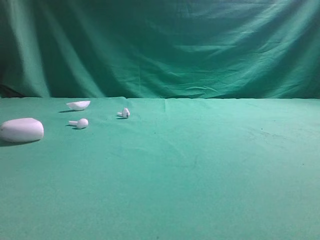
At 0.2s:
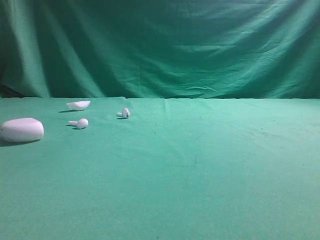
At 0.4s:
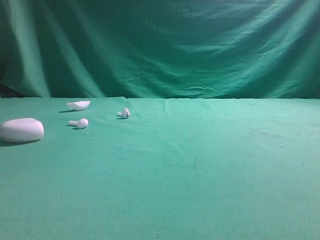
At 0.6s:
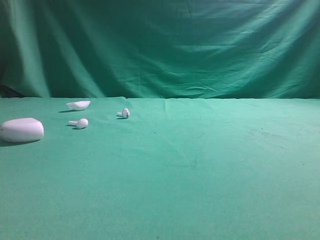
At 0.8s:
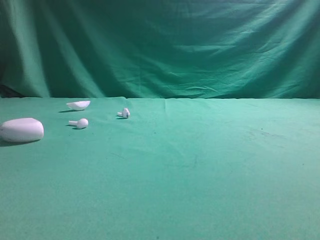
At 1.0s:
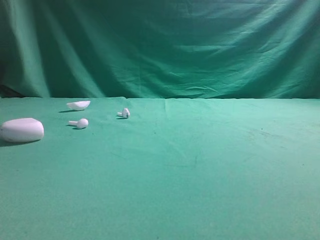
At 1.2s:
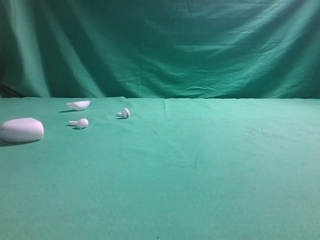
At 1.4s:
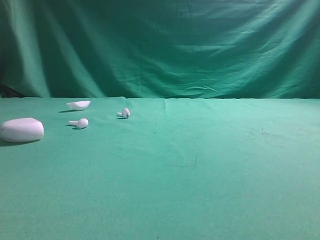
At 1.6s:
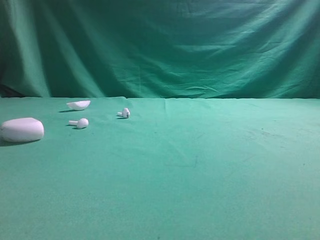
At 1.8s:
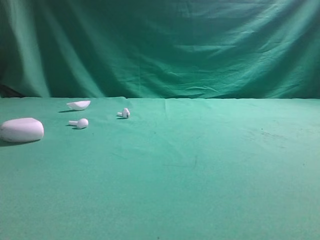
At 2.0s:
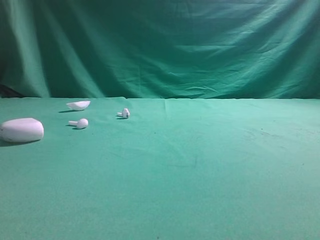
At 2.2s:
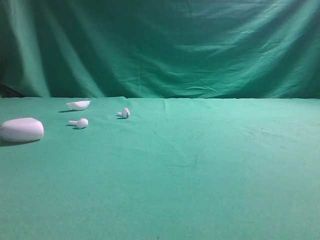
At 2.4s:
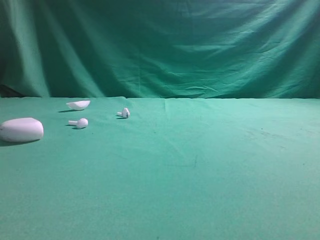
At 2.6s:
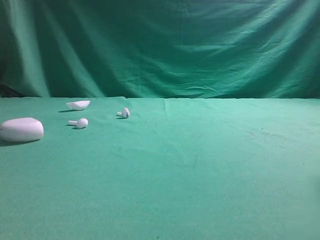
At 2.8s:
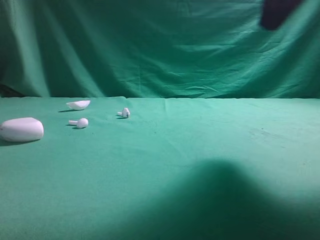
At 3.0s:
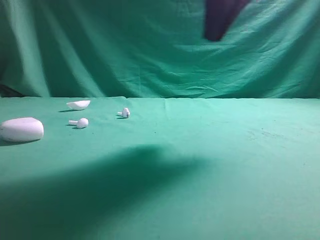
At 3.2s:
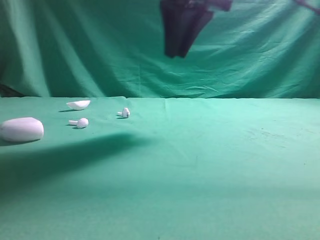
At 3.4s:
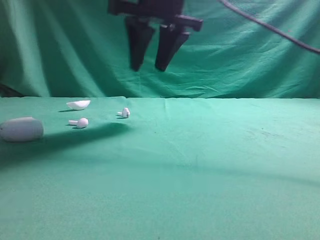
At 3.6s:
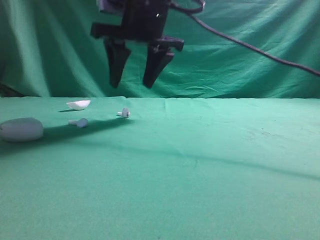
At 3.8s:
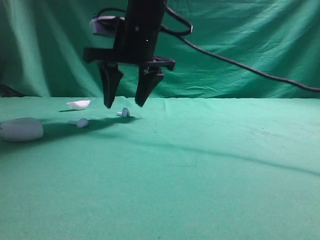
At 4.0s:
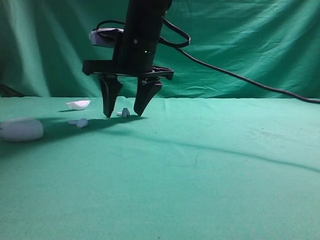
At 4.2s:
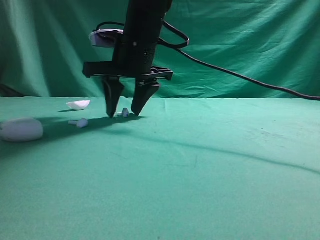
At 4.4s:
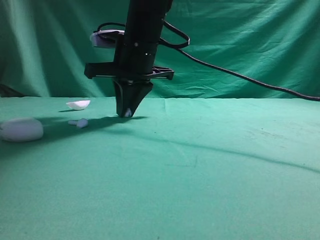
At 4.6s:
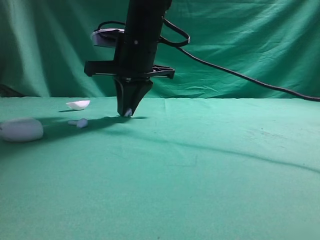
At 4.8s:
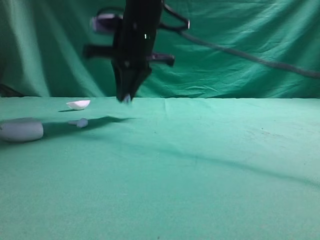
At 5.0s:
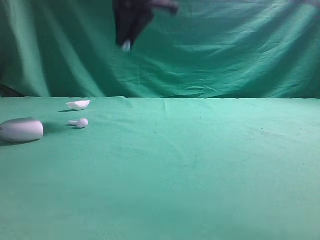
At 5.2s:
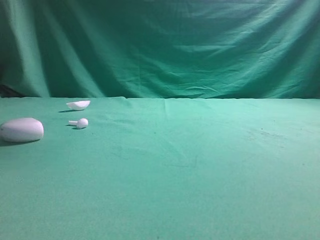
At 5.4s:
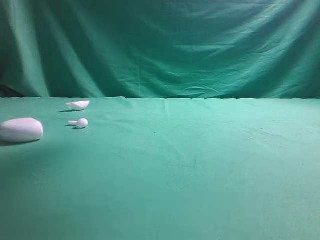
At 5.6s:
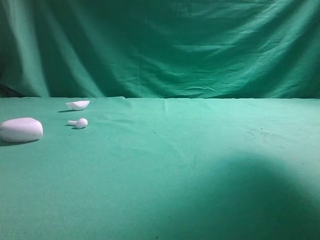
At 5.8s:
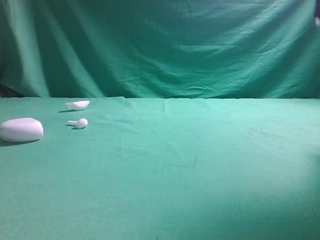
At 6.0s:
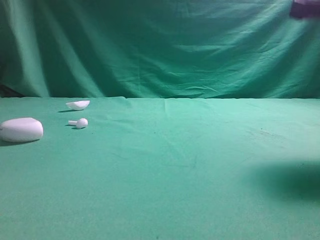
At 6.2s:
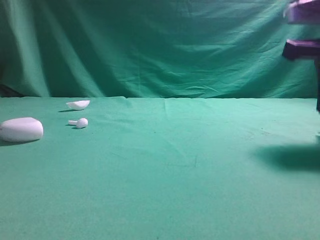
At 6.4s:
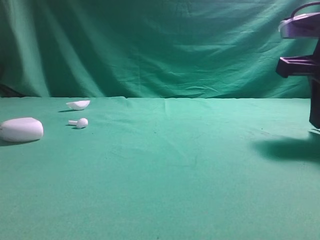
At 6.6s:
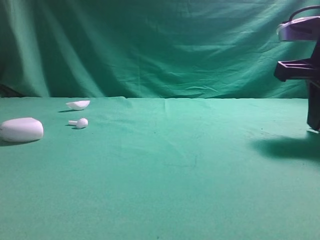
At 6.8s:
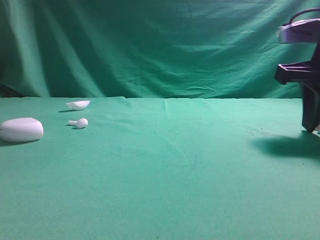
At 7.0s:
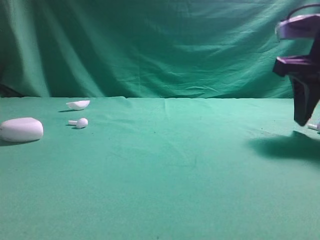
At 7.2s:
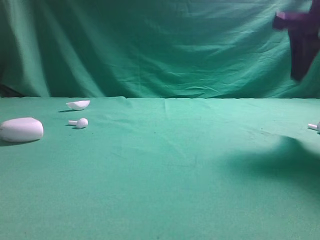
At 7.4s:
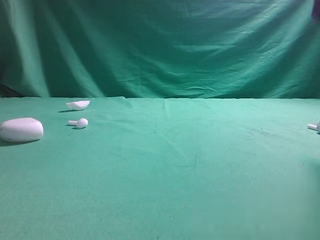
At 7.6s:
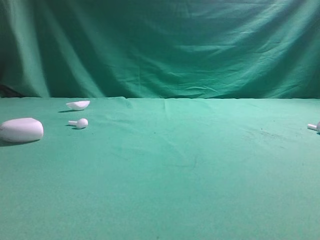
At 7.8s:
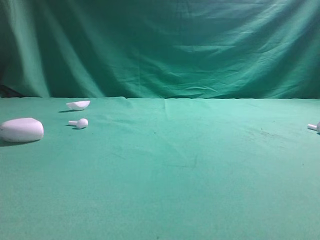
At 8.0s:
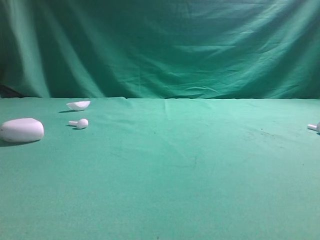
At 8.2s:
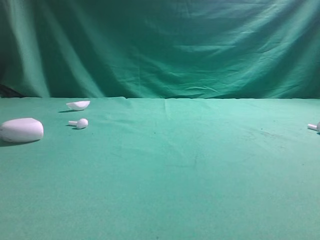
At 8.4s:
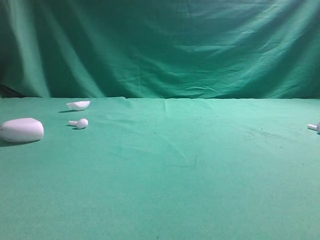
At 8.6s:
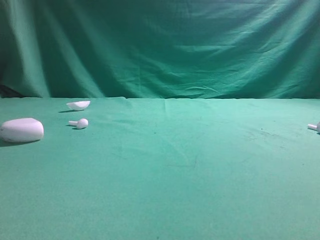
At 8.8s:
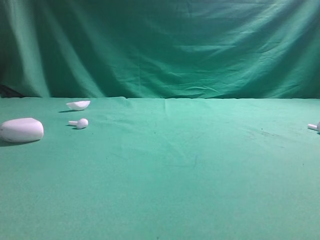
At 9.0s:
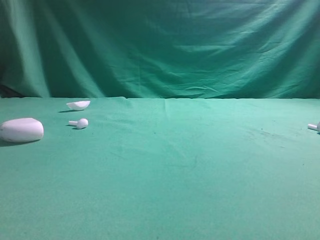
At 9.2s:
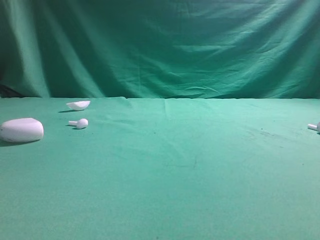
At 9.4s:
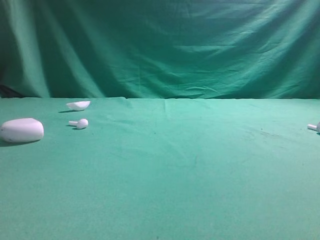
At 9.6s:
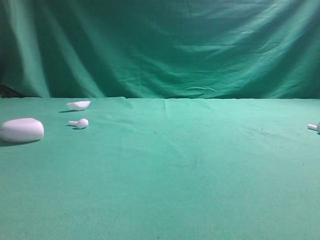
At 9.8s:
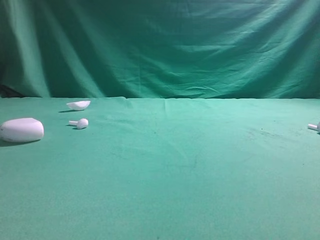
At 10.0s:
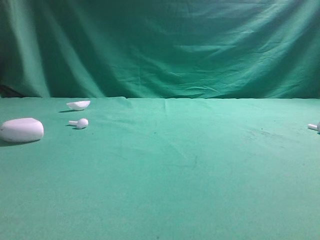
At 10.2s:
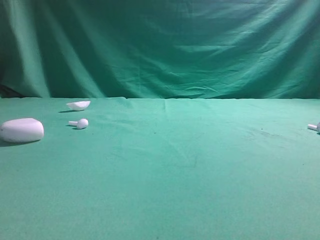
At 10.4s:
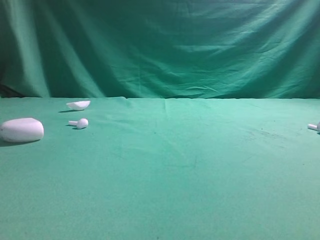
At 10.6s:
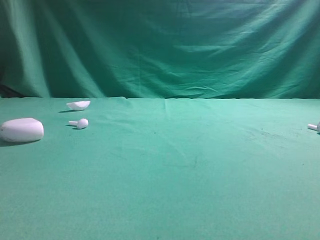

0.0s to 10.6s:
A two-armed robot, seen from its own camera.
Step, 0.0s to 5.4s: Grasp the Bluetooth earbud.
Step, 5.6s to 7.6s: Place bluetooth earbud on the right side of the table.

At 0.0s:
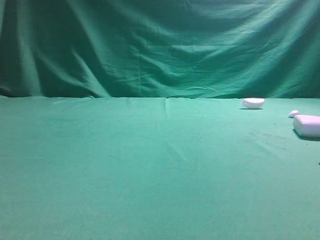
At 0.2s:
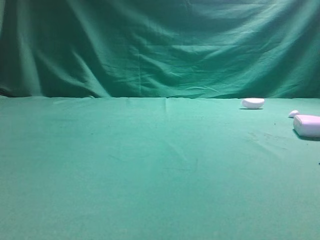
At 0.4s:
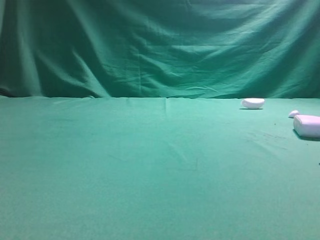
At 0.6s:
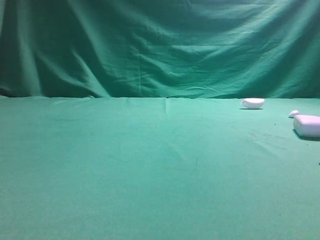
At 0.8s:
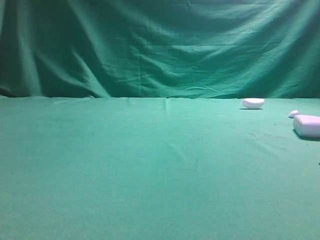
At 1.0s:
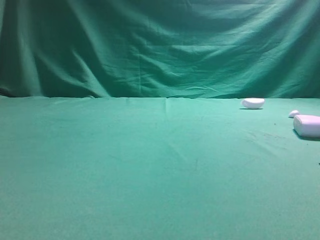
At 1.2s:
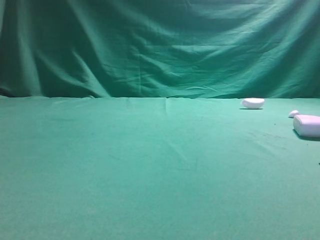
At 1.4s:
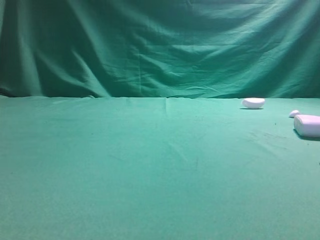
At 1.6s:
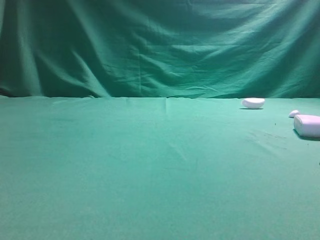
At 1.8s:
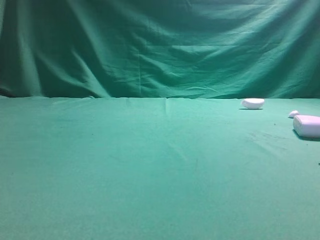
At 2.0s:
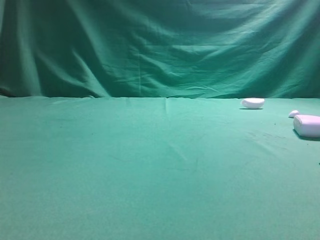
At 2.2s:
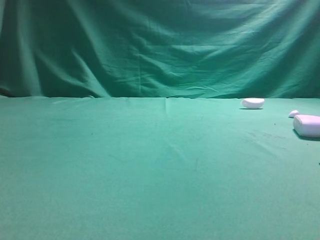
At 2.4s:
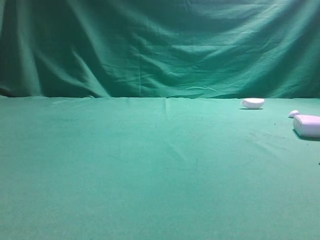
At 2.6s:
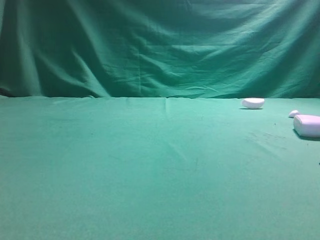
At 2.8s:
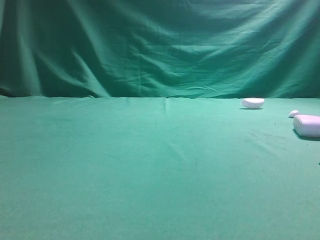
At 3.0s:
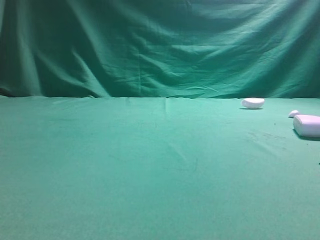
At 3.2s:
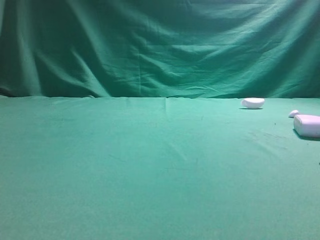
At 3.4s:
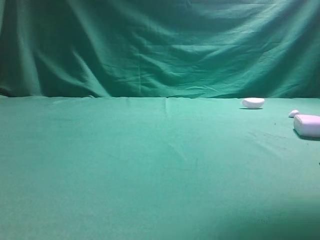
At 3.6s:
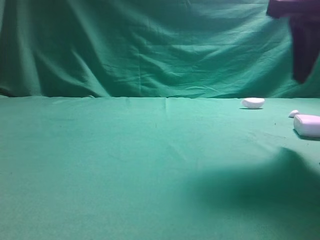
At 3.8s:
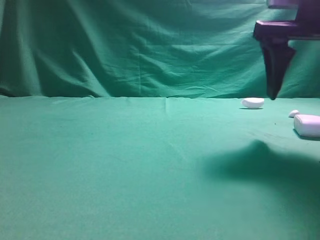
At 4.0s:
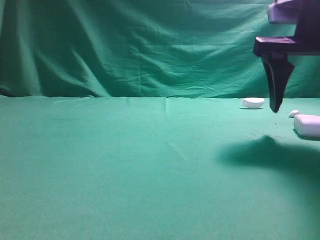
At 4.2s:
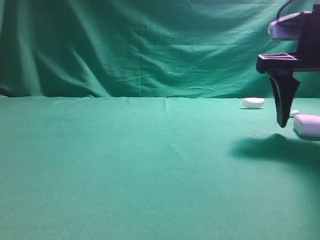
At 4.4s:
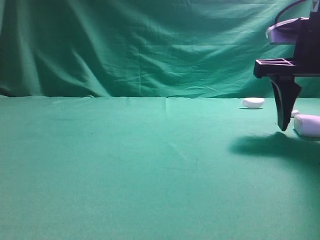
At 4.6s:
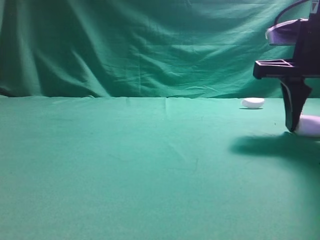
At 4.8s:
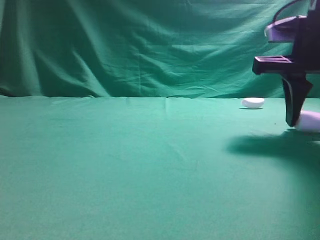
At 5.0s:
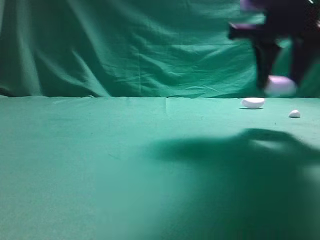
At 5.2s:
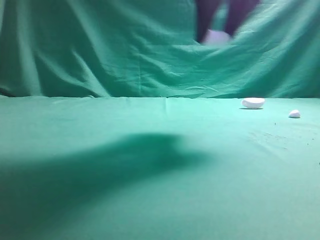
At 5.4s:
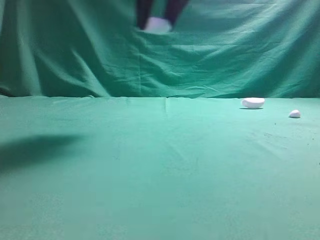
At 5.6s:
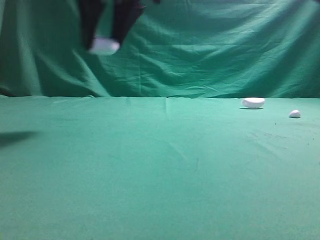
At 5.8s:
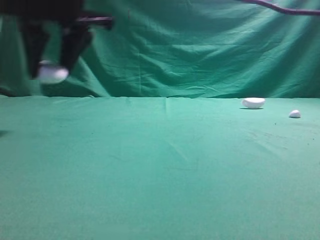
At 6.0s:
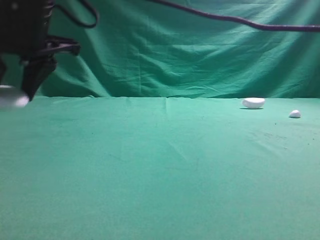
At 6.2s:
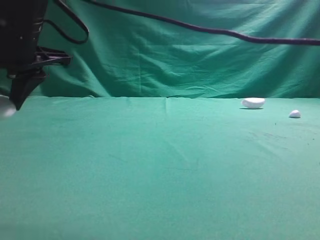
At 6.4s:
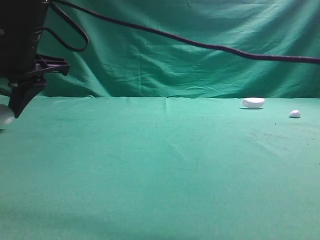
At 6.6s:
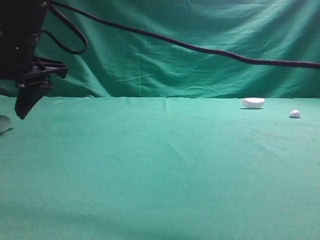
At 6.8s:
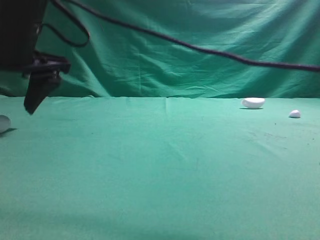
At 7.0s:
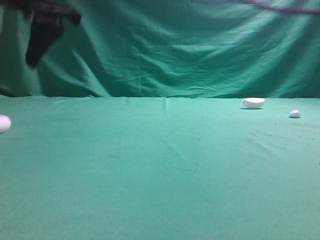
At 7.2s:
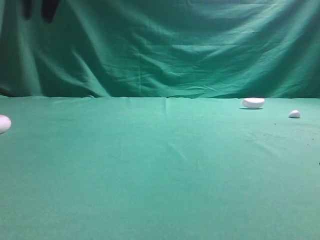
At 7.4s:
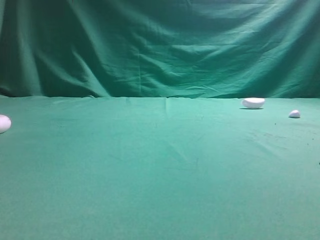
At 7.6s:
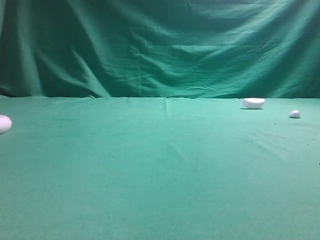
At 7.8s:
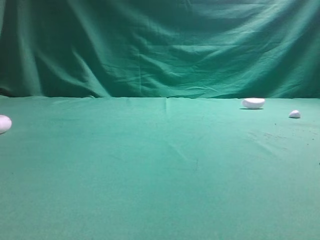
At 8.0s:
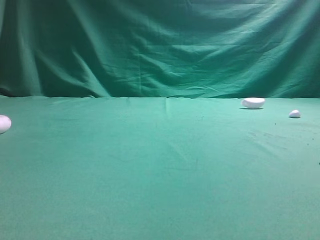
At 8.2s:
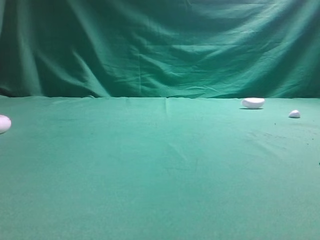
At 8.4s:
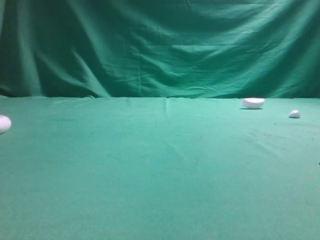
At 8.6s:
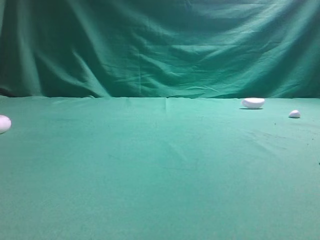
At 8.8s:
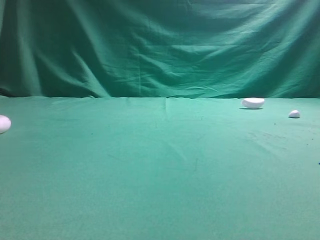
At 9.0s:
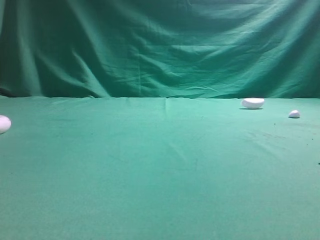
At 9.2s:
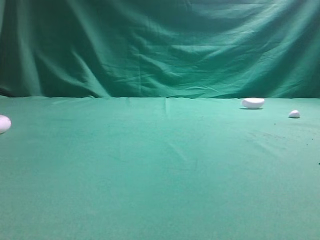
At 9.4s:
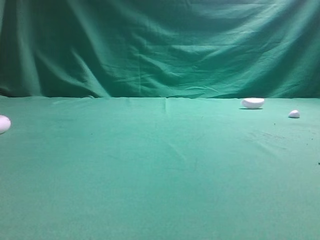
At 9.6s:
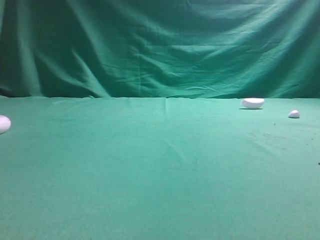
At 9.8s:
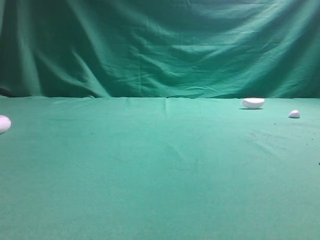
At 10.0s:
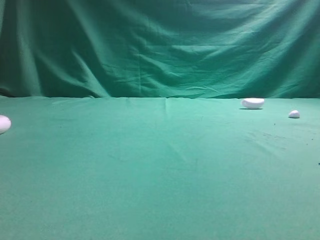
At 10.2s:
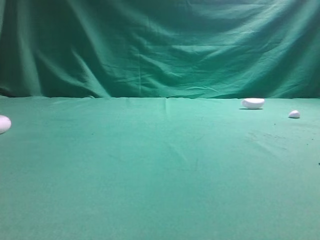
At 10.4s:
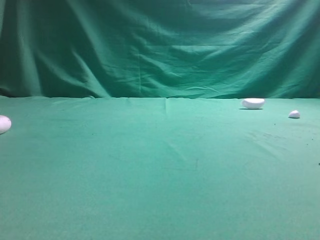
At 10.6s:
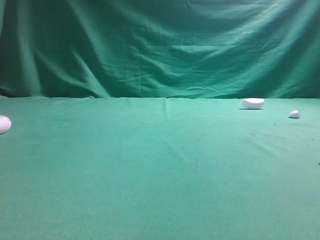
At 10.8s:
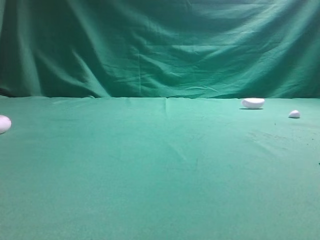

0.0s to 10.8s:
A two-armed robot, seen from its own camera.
Step, 0.0s to 4.8s: Grasp the Bluetooth earphone case.
Step, 5.0s to 6.8s: Place bluetooth earphone case on the left side of the table.

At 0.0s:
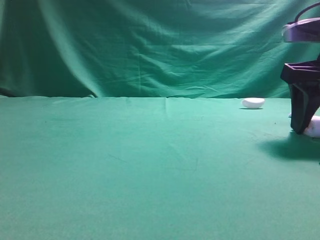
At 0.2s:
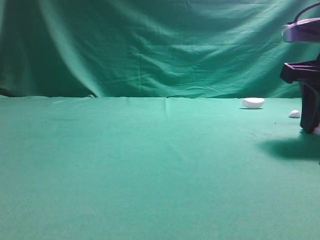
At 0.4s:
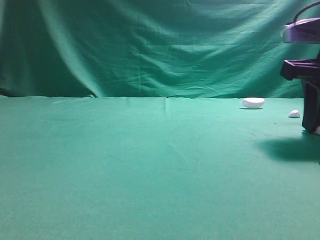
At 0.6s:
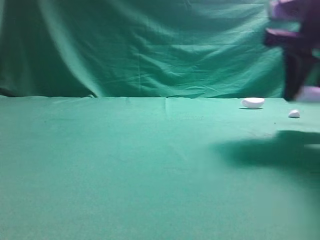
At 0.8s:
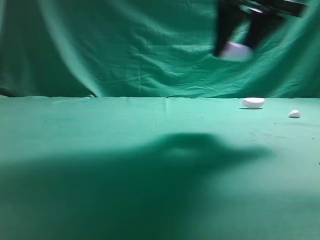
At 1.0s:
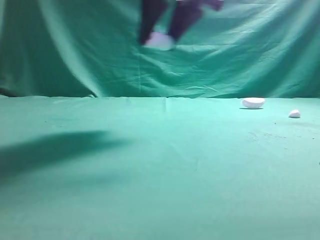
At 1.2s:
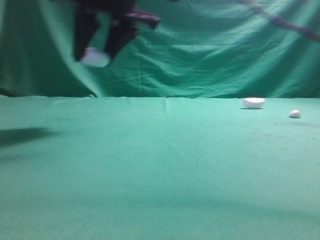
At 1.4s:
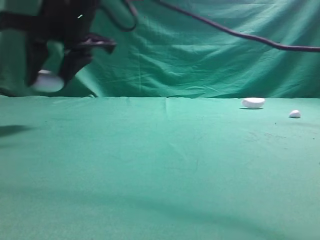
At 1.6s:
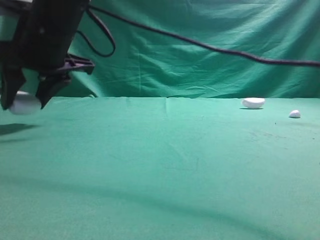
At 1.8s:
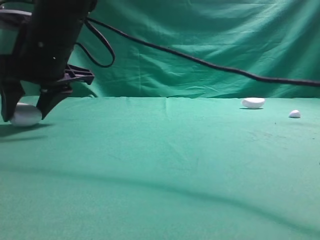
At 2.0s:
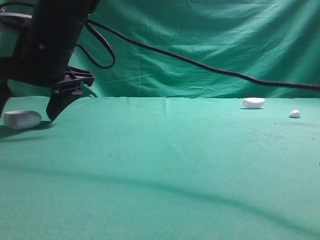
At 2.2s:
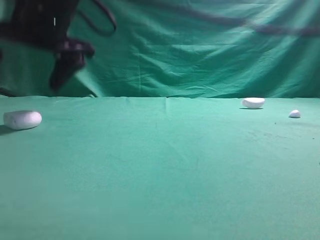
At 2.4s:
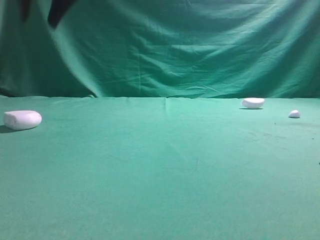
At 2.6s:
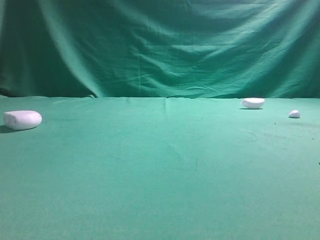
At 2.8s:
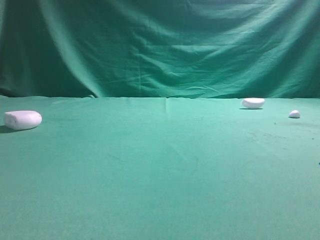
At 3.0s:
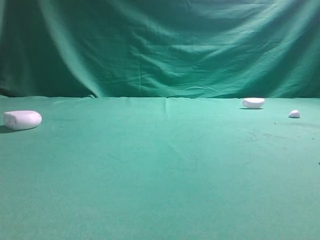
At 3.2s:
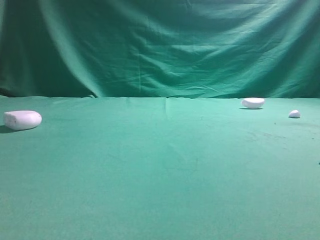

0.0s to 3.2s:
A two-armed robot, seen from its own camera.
Step, 0.6s to 2.0s: Place bluetooth earphone case on the left side of the table.
